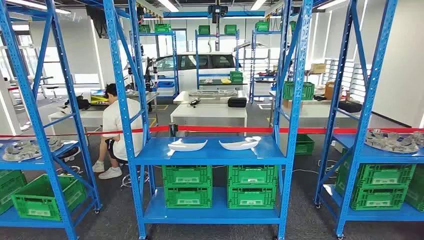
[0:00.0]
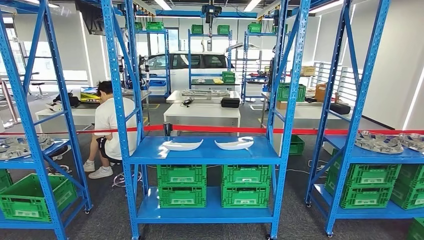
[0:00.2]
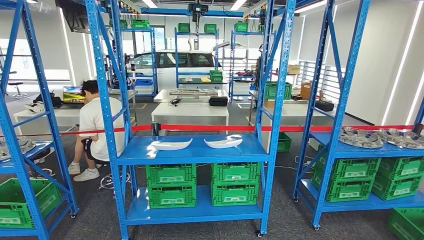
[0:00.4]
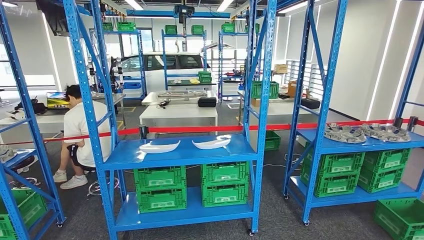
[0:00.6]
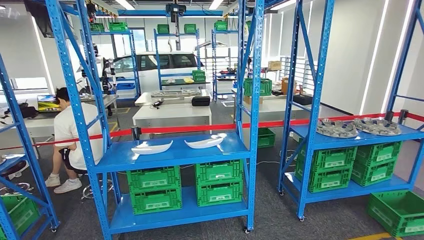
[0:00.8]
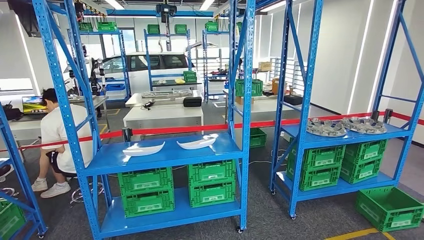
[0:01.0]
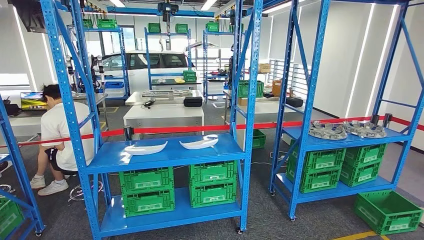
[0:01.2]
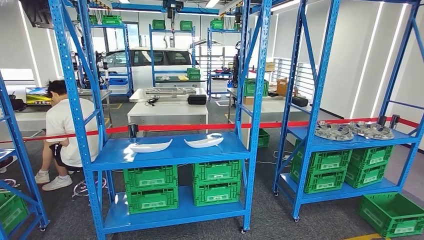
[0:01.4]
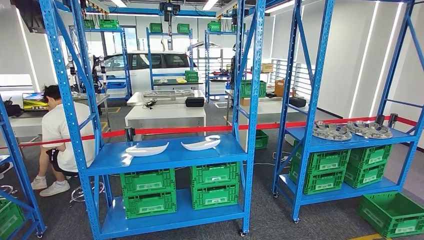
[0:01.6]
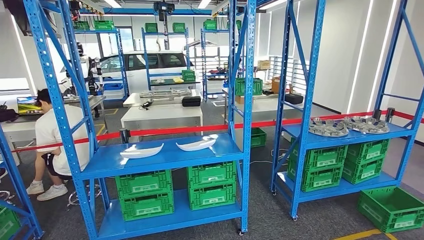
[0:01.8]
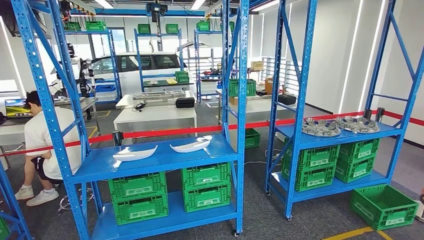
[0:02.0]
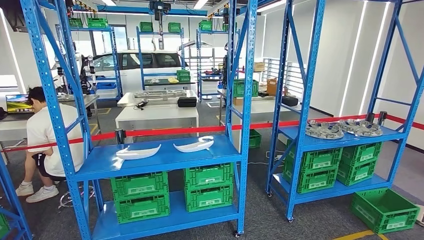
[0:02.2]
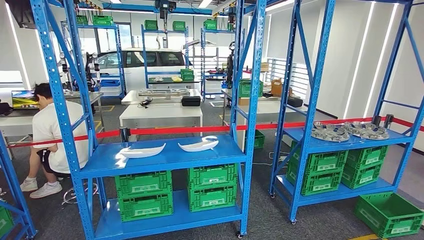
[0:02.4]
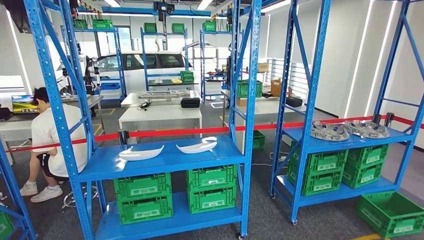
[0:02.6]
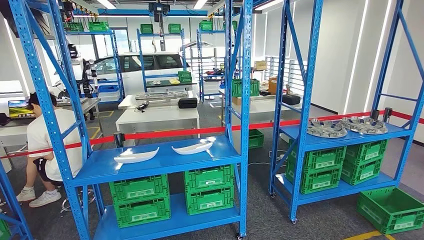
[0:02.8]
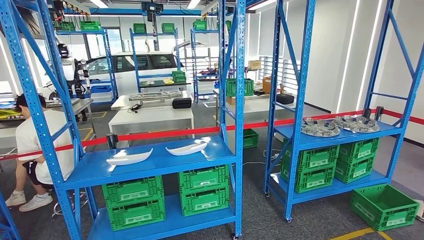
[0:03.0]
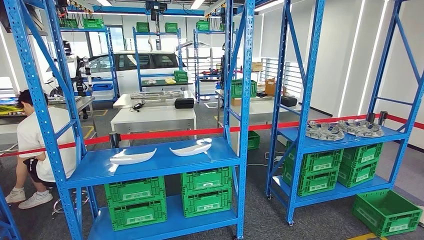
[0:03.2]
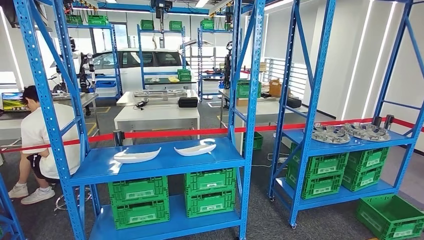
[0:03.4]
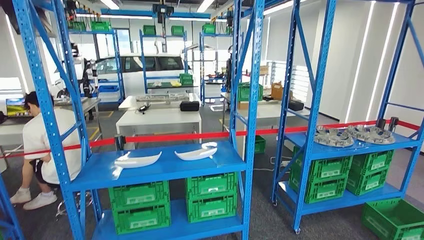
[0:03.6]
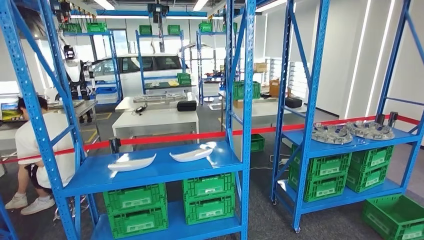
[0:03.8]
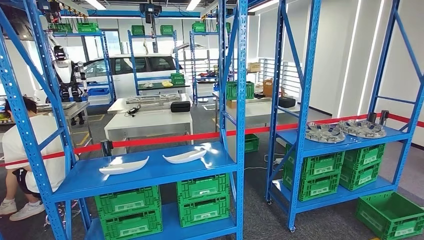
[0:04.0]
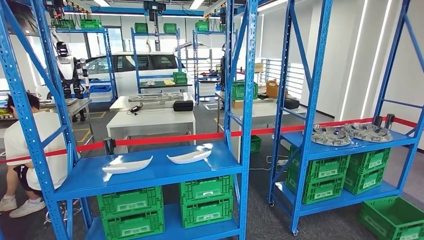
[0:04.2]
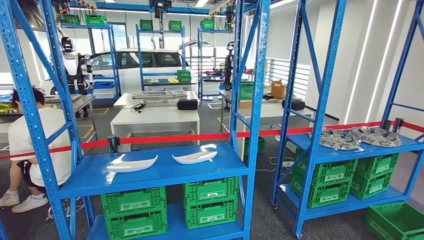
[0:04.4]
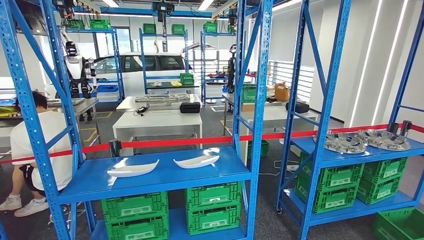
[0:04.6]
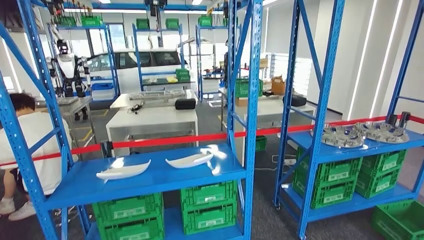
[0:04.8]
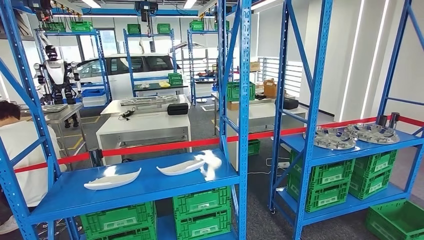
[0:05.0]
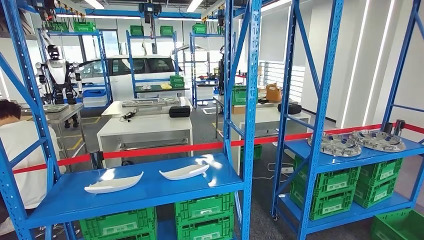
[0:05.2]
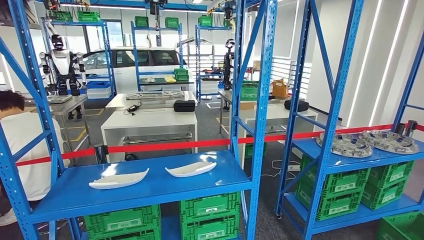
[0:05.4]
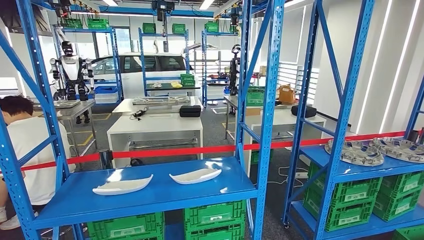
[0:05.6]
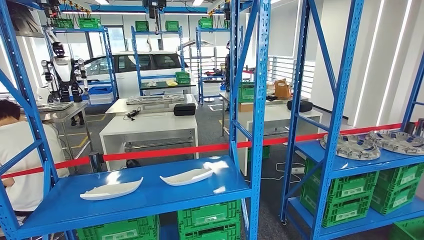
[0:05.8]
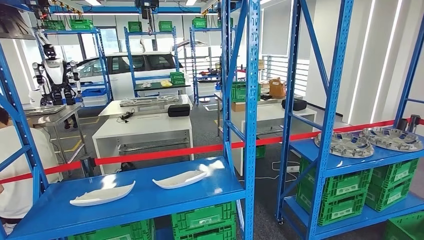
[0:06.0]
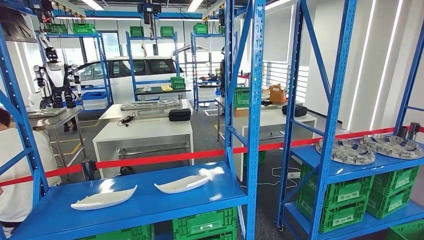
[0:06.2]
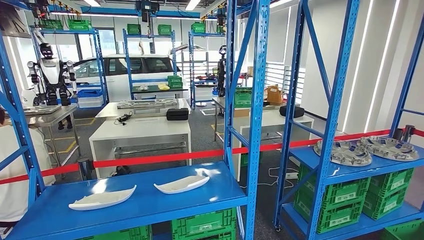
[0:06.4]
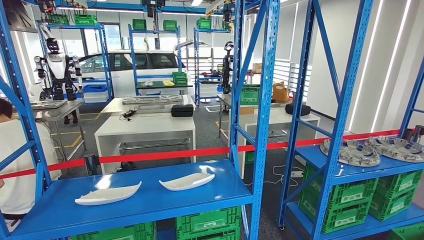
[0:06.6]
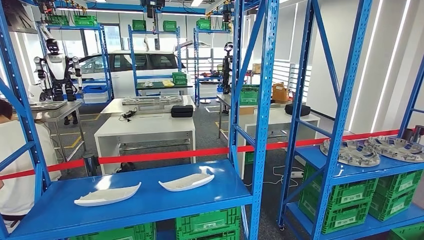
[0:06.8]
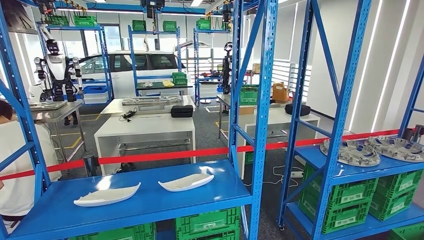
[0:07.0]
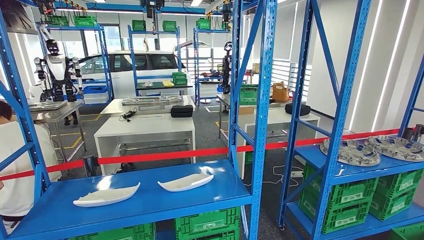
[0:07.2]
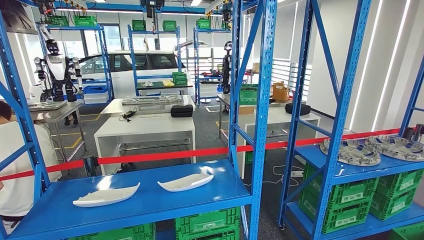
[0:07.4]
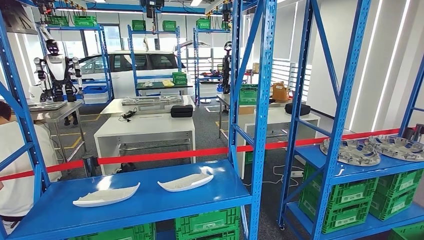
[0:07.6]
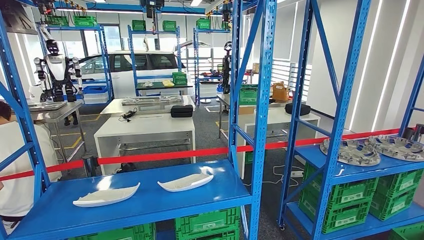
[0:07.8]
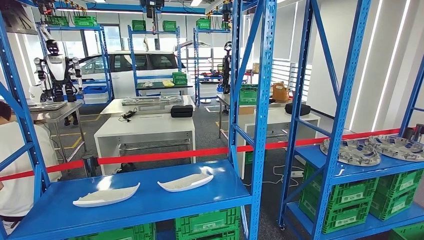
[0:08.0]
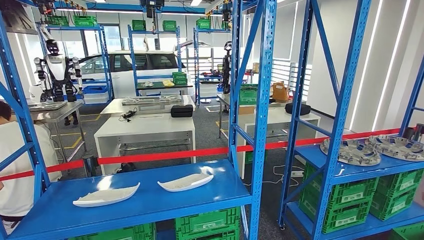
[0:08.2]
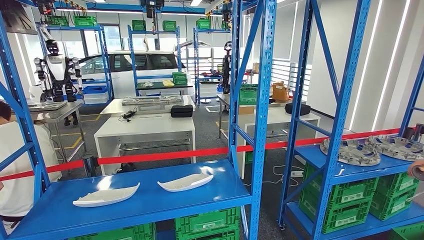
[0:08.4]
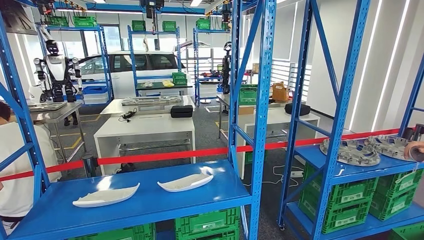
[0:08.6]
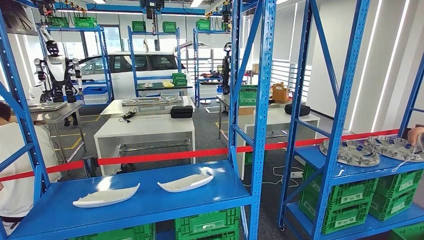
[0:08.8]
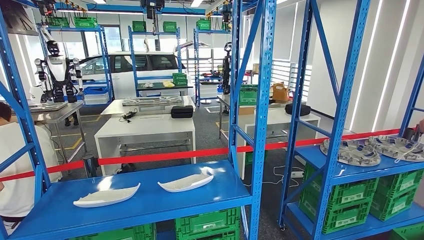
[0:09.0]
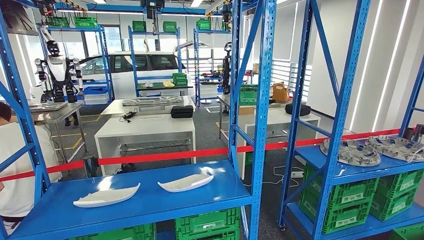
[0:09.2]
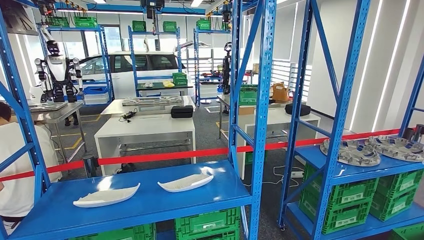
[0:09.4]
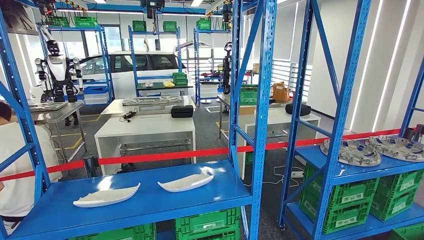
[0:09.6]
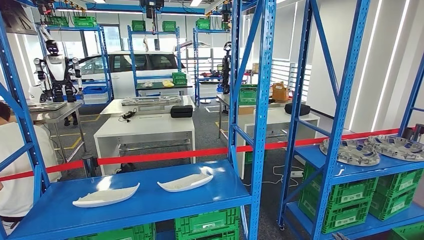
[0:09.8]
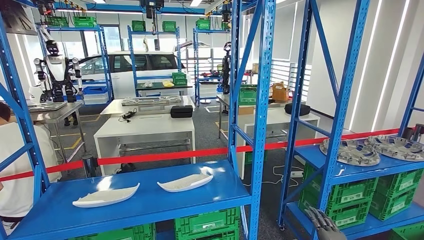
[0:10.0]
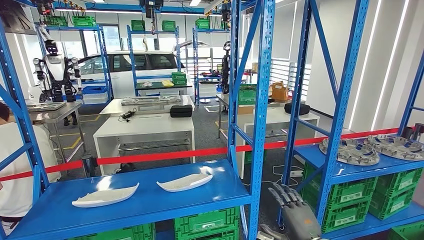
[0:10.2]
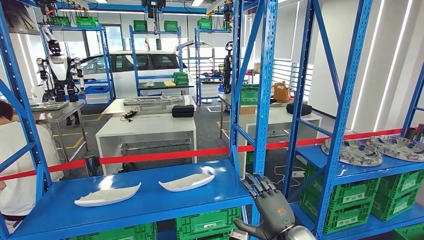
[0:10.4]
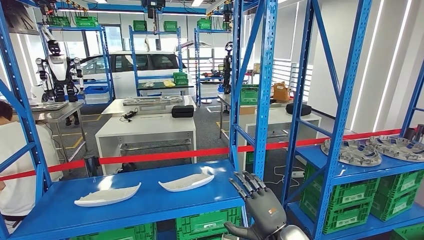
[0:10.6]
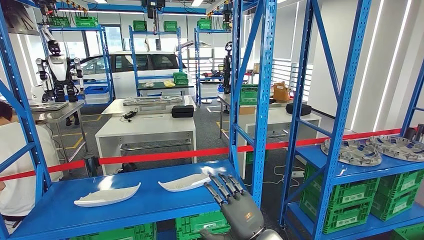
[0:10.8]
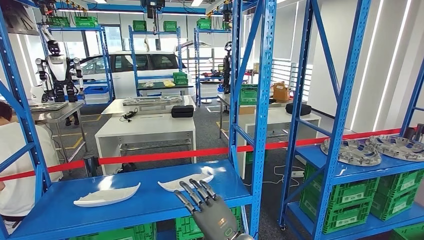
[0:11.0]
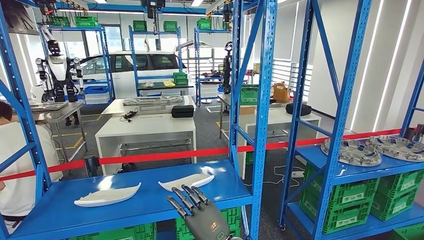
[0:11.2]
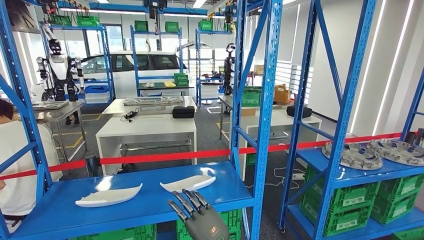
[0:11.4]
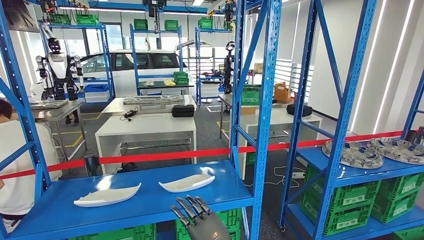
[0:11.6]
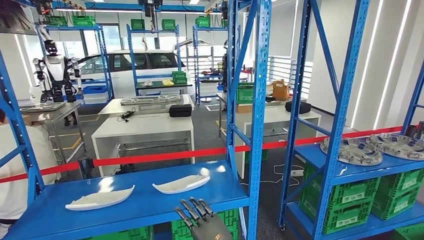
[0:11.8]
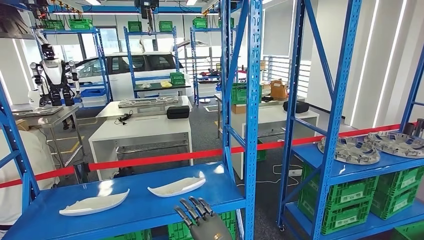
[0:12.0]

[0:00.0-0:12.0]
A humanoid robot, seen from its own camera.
0:07.6 to 0:09.0: The left hand is displaced forward by some 5 cm; the right hand heads forward and to the right, covering about 20 cm.

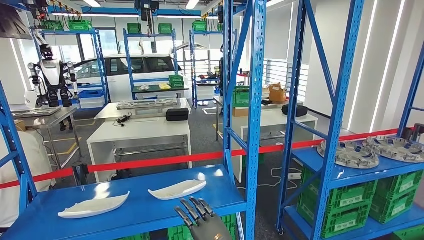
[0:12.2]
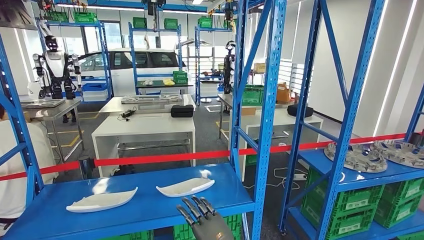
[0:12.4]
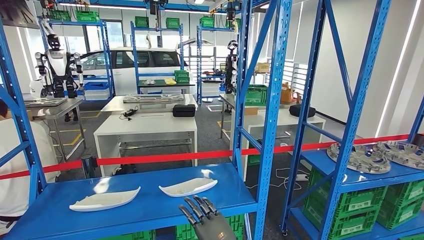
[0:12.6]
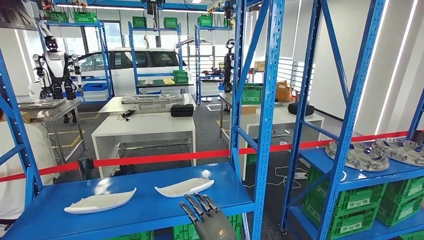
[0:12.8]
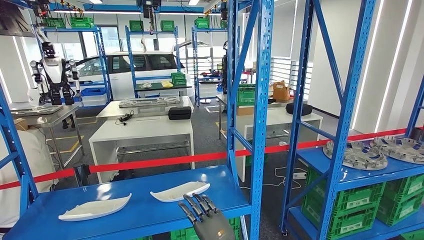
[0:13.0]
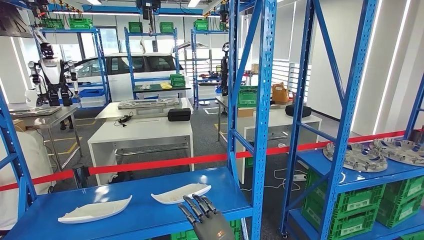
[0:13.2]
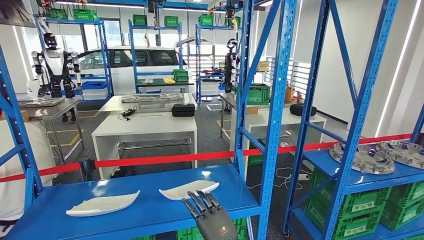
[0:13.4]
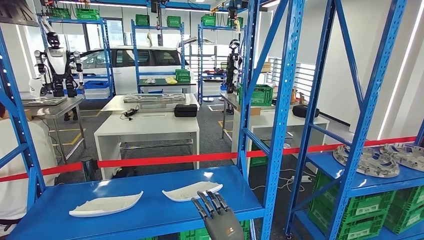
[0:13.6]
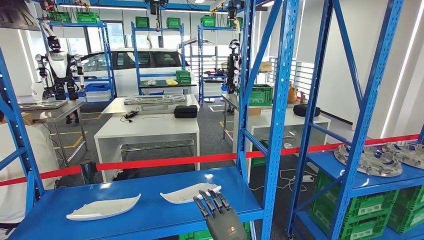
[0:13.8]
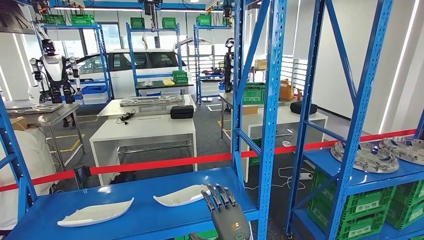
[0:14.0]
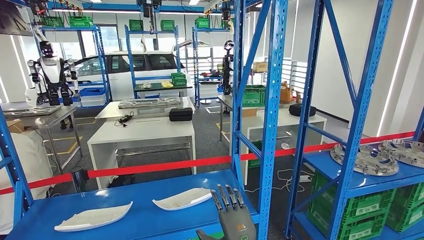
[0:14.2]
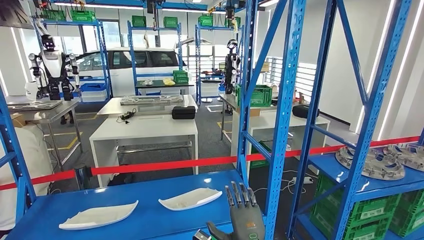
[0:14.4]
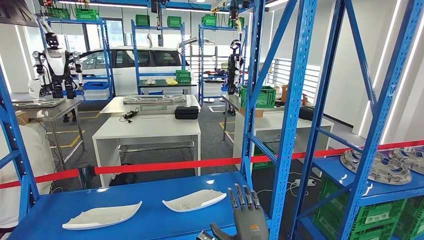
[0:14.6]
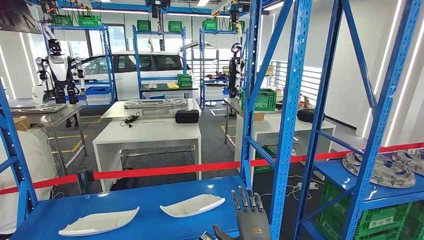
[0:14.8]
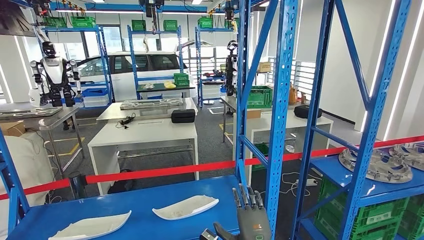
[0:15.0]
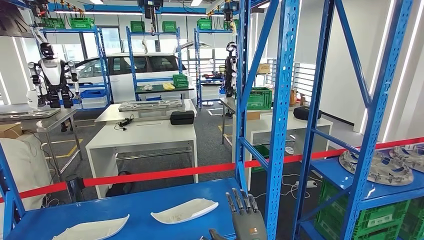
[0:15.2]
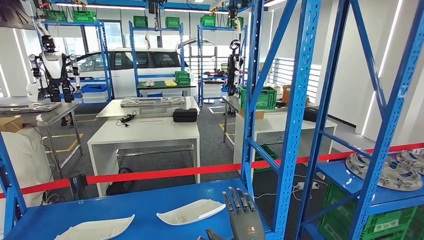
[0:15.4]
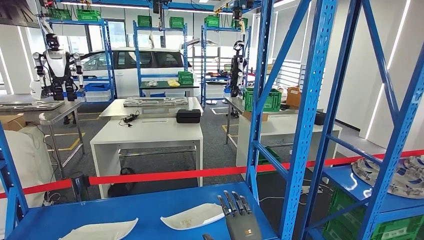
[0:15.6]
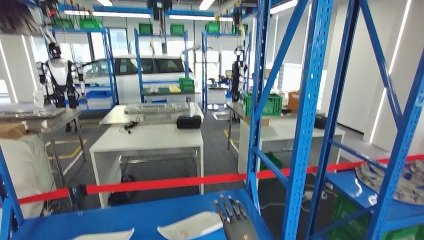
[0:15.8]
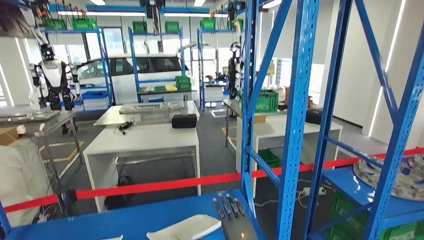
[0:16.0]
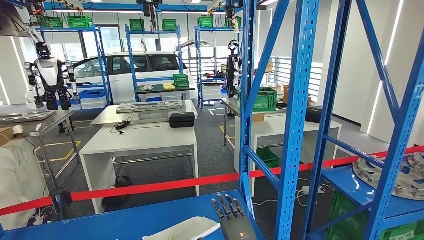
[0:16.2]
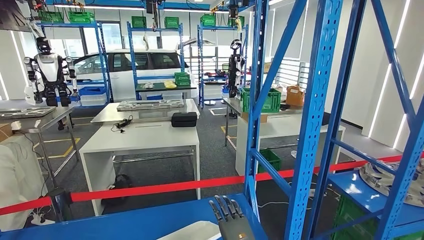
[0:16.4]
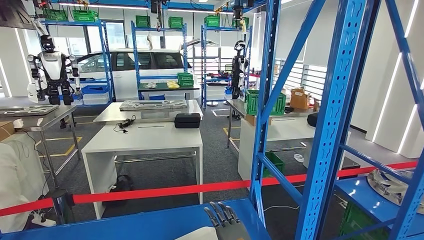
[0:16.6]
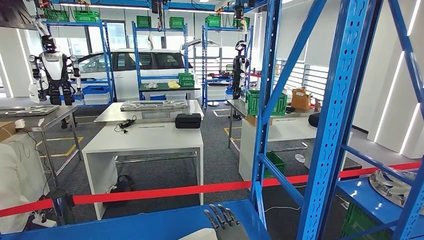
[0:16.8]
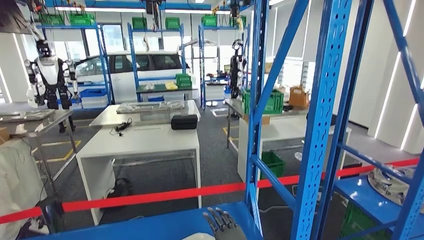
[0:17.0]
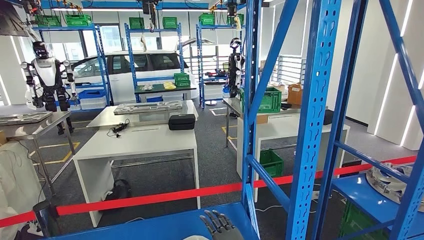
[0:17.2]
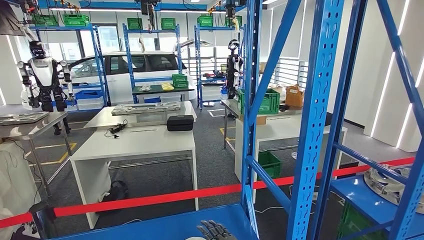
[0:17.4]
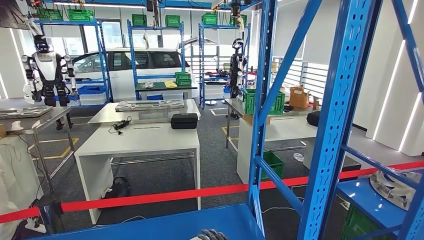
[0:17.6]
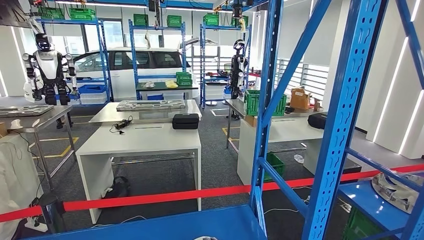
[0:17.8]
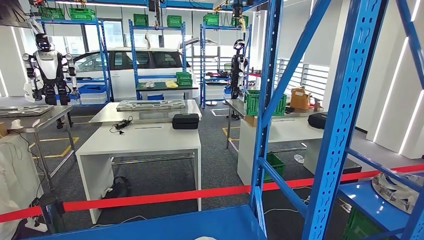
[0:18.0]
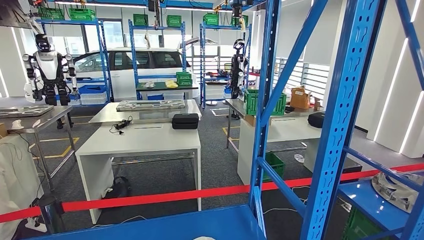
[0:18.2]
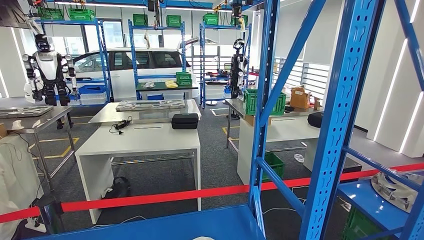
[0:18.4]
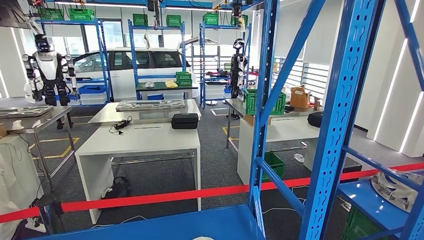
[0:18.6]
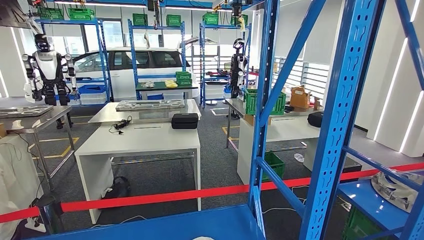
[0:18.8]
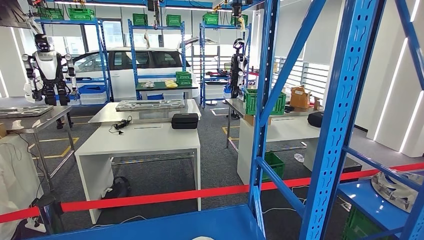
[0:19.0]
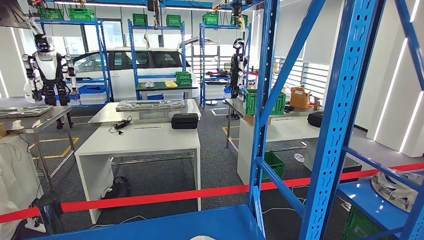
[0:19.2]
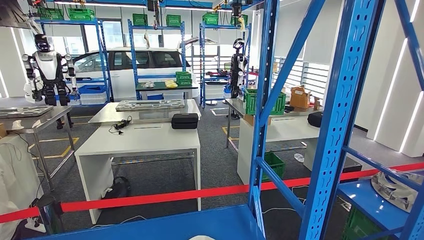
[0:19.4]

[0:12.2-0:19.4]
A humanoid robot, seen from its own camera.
0:18.0 to 0:19.4: The hands make only small movements.
